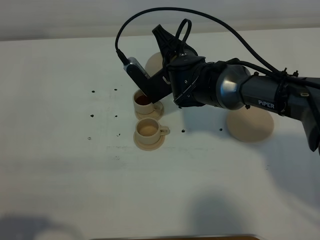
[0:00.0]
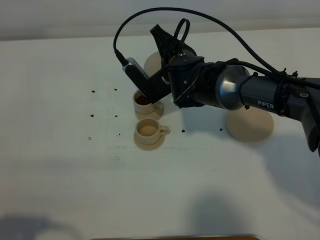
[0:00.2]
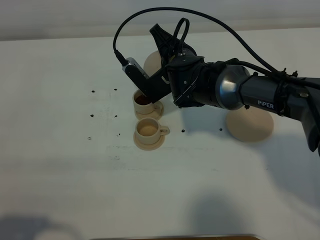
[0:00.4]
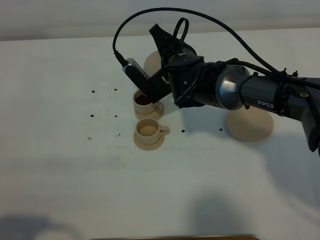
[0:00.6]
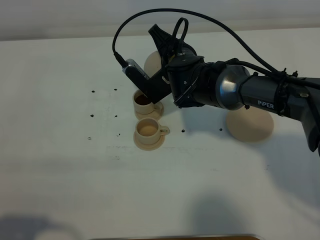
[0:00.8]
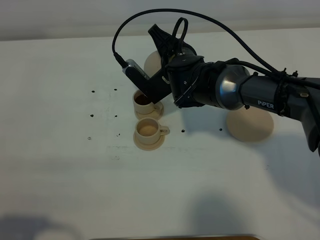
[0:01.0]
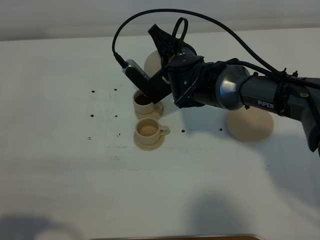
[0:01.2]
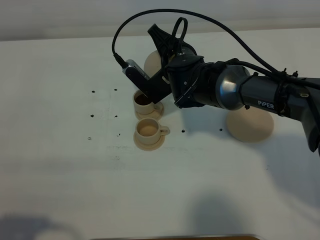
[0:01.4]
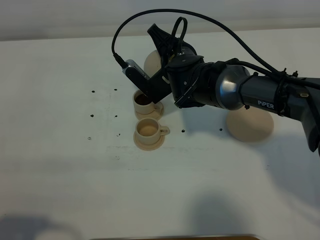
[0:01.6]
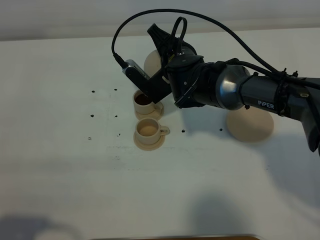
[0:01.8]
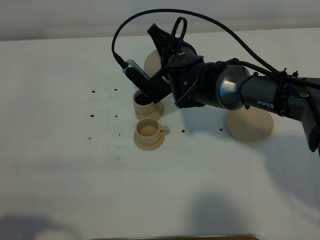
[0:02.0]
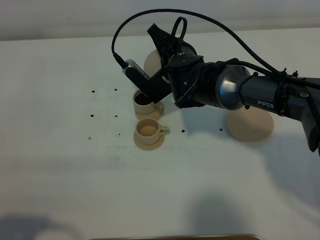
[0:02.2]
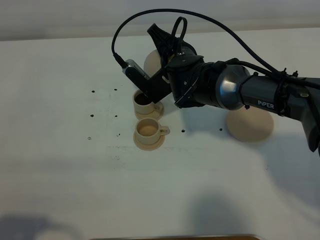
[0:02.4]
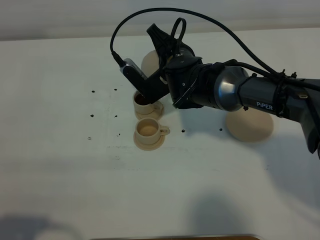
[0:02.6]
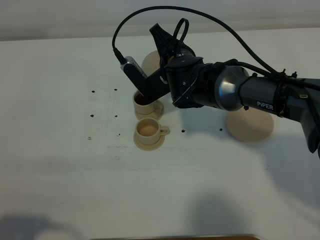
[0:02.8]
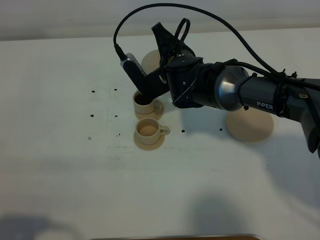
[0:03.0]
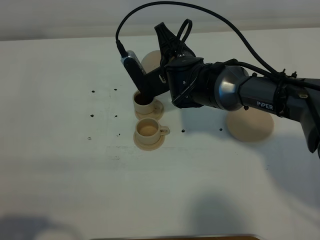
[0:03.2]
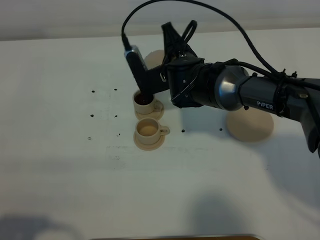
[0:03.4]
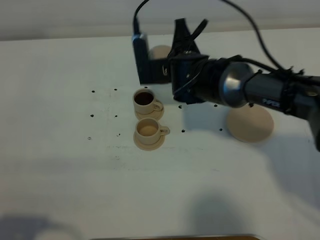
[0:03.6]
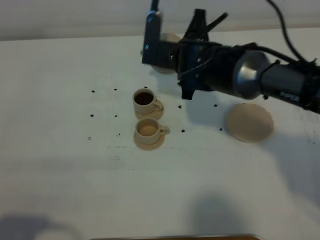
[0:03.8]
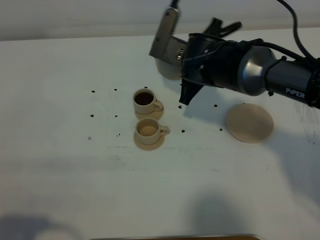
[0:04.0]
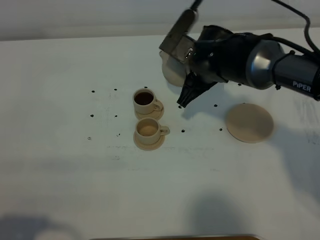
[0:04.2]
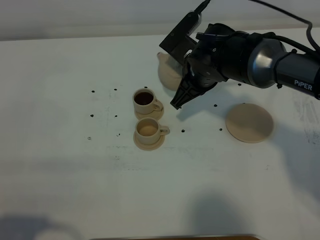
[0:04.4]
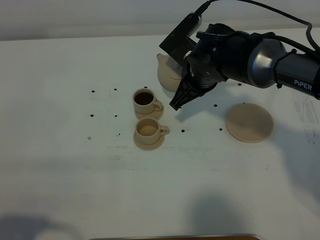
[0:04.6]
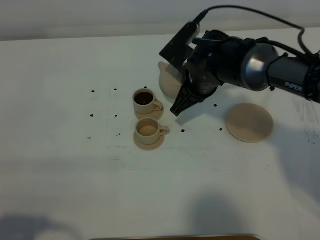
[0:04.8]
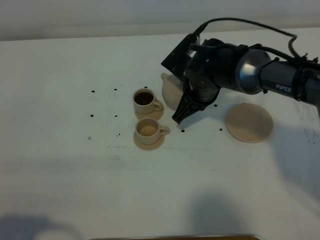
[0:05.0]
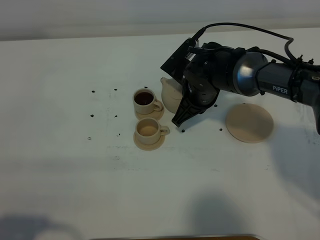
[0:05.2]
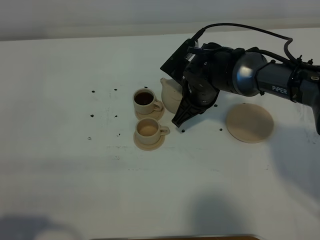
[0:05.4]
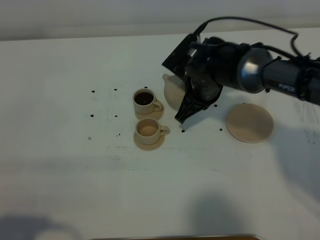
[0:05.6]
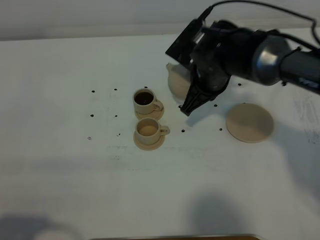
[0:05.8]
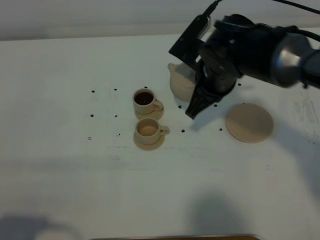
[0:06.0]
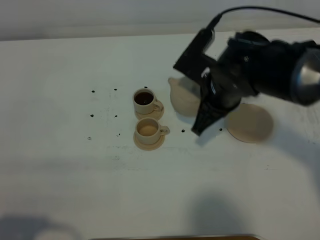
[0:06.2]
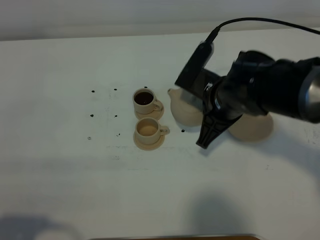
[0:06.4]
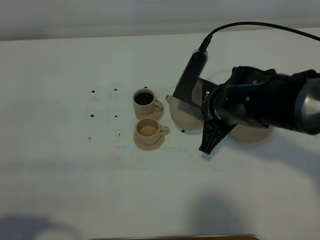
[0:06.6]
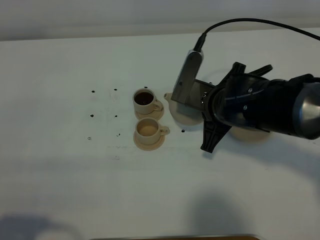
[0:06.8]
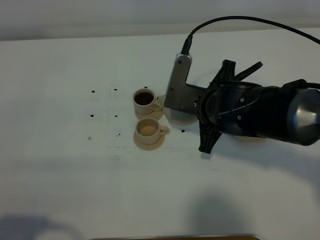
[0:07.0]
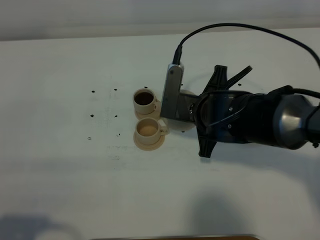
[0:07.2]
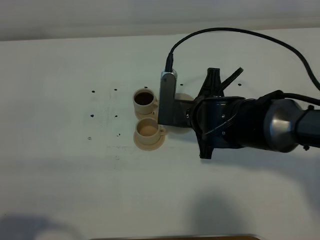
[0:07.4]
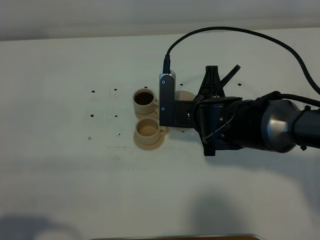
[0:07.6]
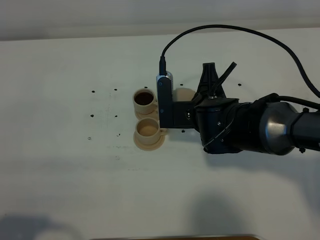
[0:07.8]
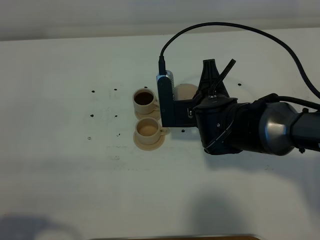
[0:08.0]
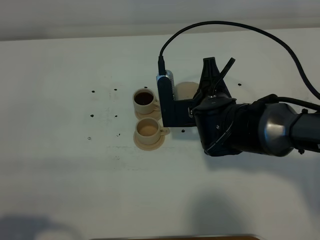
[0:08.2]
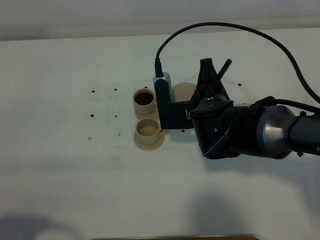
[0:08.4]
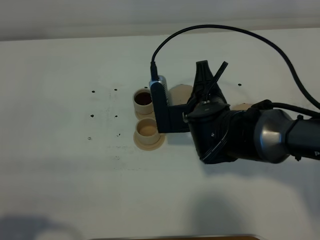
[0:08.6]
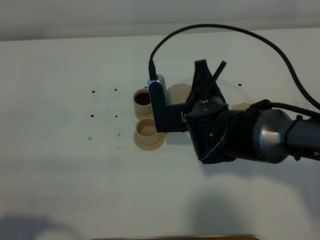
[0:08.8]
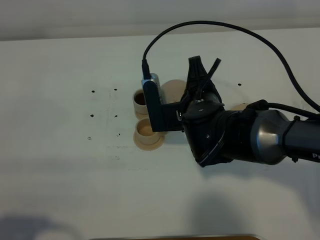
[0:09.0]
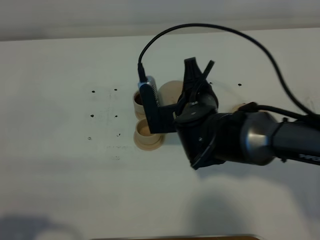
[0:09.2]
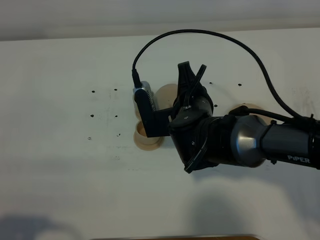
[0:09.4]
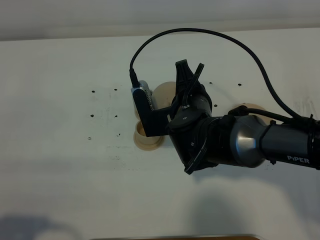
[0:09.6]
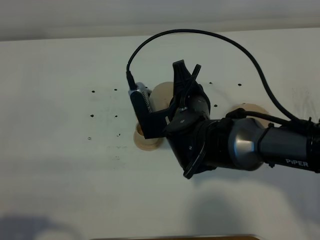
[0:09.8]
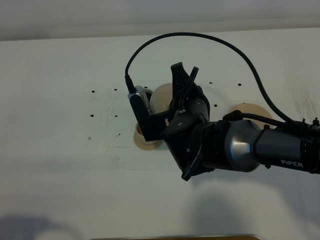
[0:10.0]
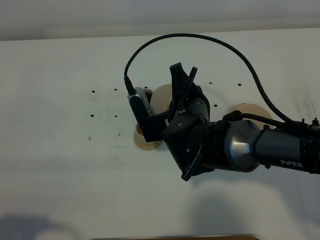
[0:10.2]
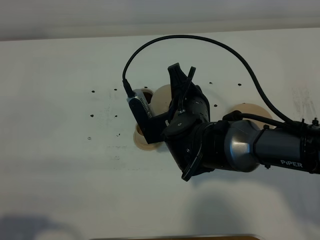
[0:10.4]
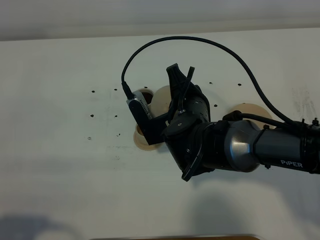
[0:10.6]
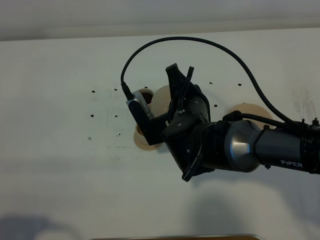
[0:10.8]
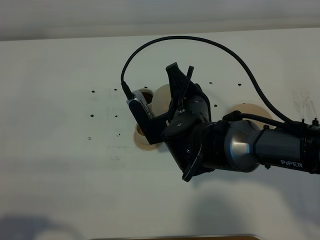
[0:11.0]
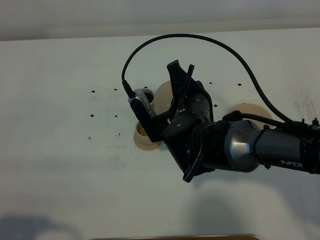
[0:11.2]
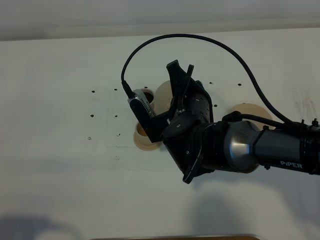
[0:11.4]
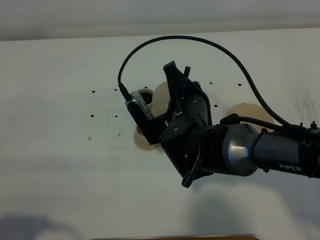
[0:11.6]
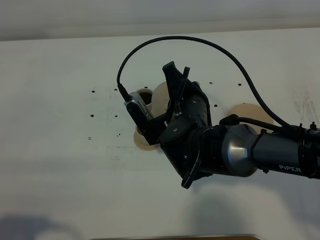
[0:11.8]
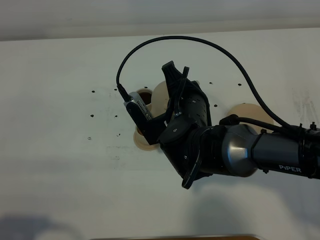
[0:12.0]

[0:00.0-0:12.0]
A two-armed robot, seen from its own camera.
Task of the whole recording: grasp the brown teapot and pour the tea into the two brown teacups one by one, put the brown teapot back in its original place.
Step, 0:00.0 to 0:03.2: Pour tea into the teacup with the right gripper.
0:00.0 to 0:03.0: The grippers make only small movements.
0:04.4 to 0:06.0: The right gripper travels downward and back again, roughly 5 cm each way.
0:06.0 to 0:07.6: The right gripper moves some 5 cm.
0:07.6 to 0:09.0: The grippers move only a little.
0:09.0 to 0:12.0: The grippers stay close to where they were, moving slightly.

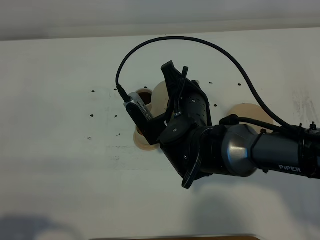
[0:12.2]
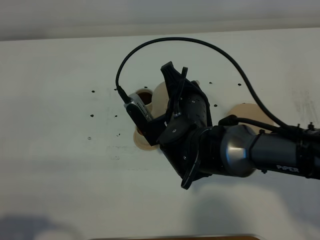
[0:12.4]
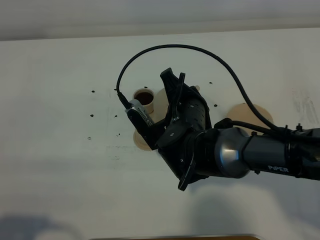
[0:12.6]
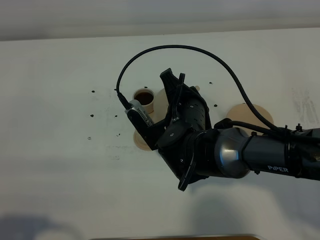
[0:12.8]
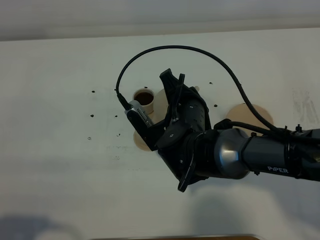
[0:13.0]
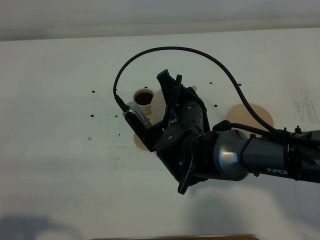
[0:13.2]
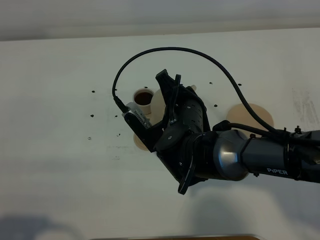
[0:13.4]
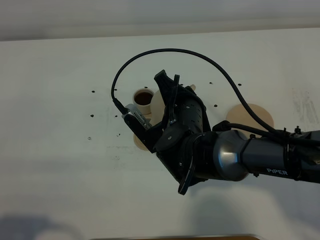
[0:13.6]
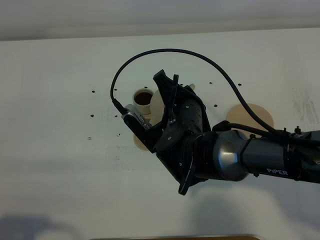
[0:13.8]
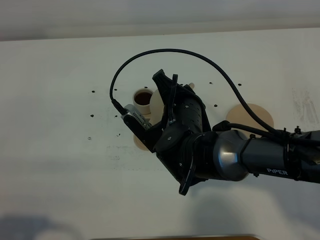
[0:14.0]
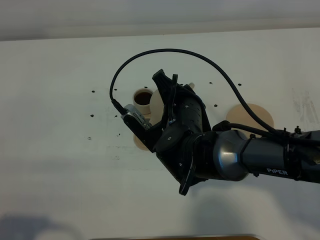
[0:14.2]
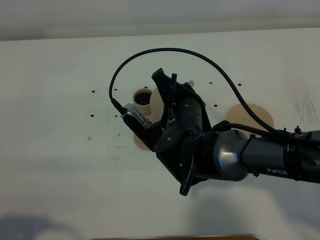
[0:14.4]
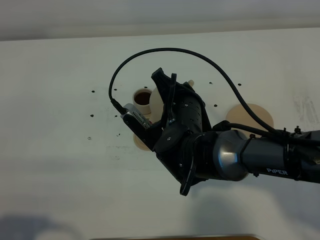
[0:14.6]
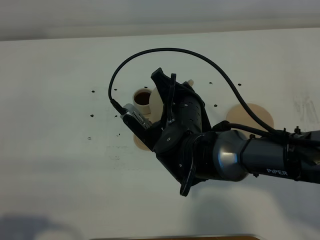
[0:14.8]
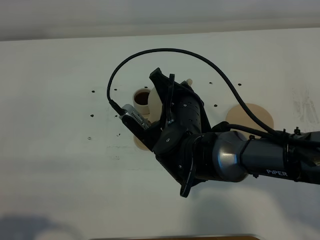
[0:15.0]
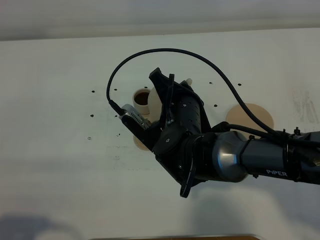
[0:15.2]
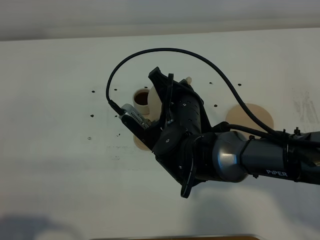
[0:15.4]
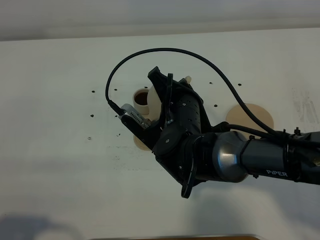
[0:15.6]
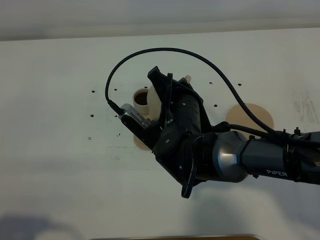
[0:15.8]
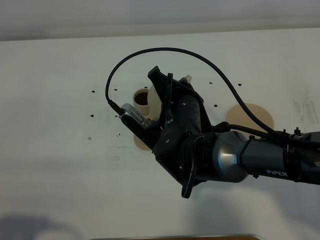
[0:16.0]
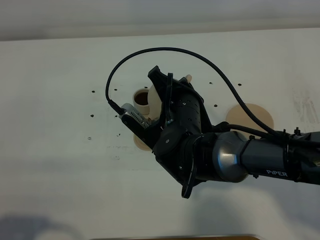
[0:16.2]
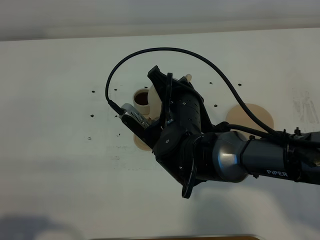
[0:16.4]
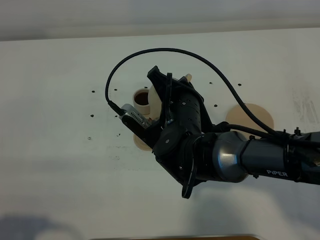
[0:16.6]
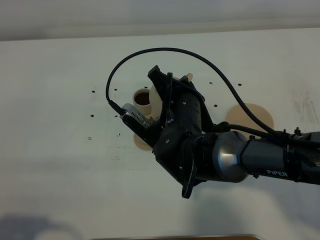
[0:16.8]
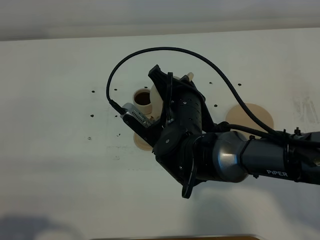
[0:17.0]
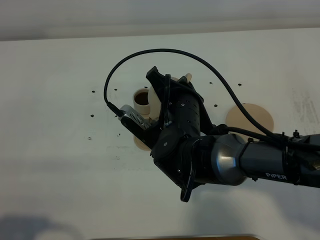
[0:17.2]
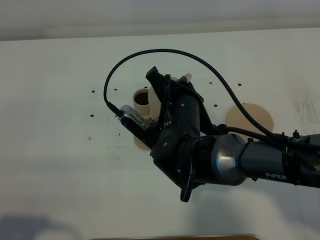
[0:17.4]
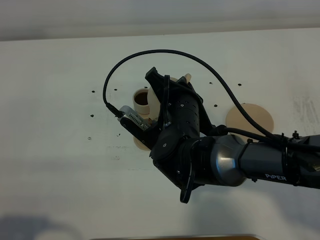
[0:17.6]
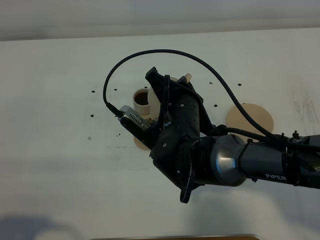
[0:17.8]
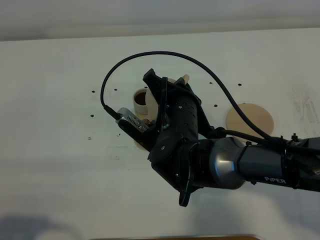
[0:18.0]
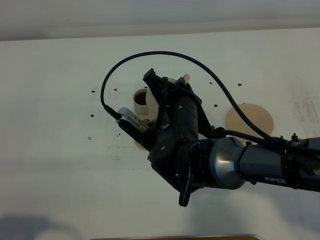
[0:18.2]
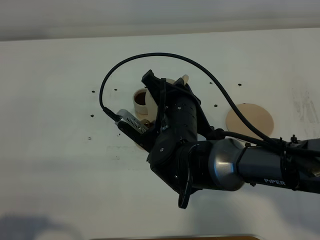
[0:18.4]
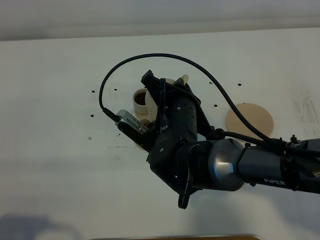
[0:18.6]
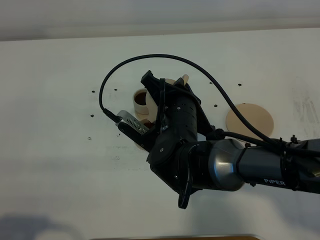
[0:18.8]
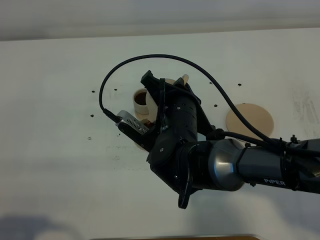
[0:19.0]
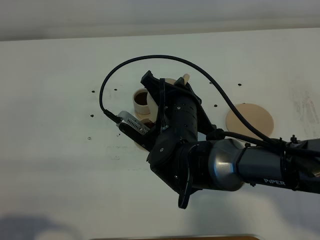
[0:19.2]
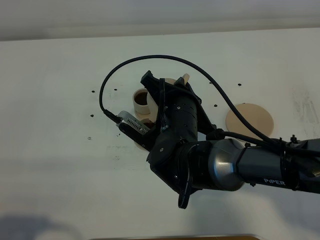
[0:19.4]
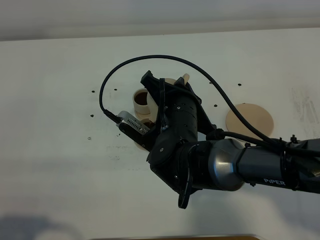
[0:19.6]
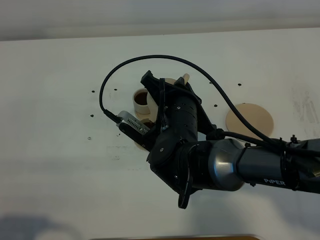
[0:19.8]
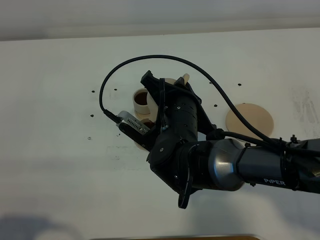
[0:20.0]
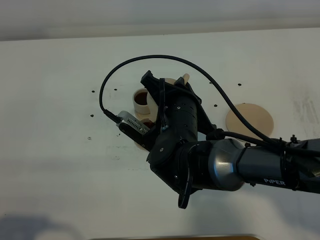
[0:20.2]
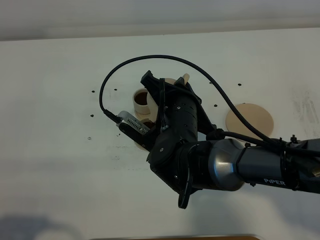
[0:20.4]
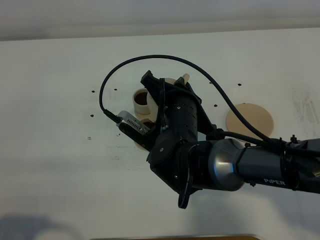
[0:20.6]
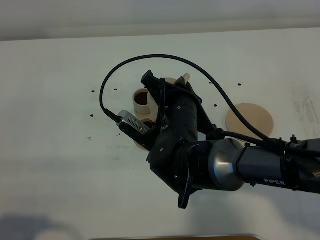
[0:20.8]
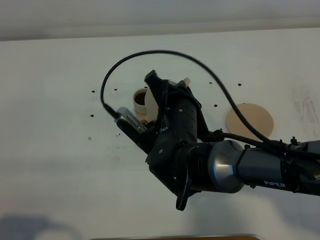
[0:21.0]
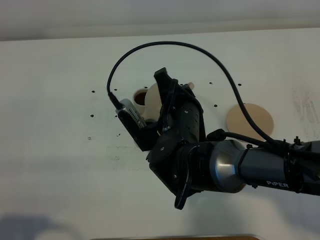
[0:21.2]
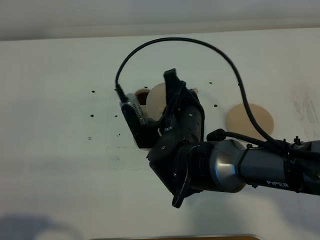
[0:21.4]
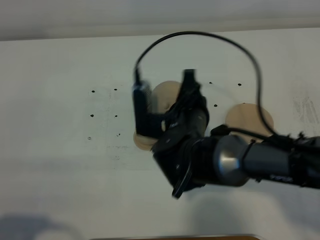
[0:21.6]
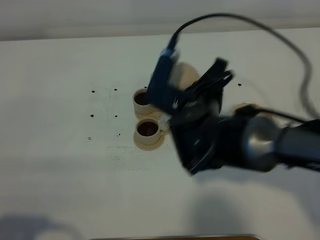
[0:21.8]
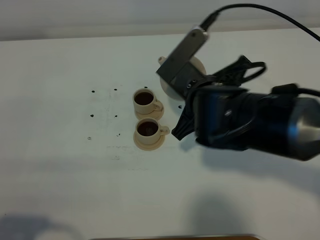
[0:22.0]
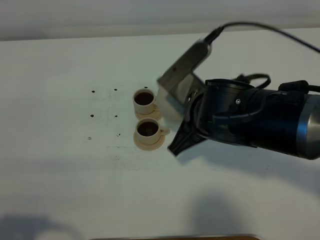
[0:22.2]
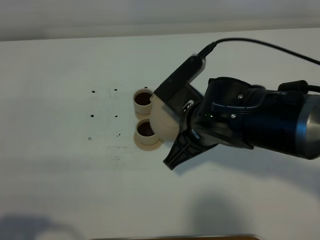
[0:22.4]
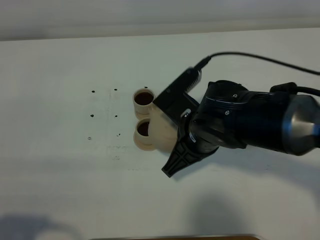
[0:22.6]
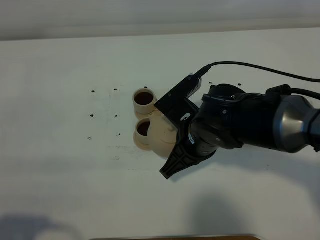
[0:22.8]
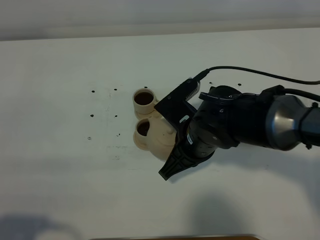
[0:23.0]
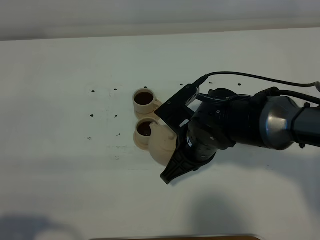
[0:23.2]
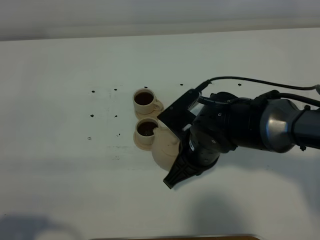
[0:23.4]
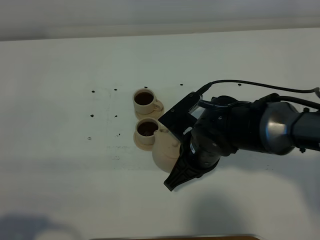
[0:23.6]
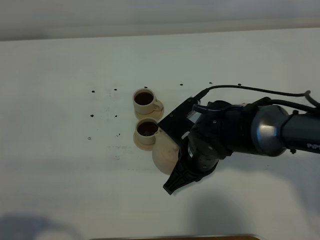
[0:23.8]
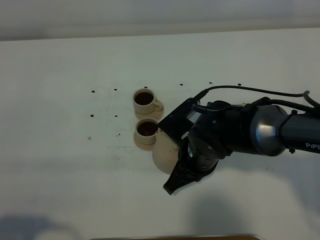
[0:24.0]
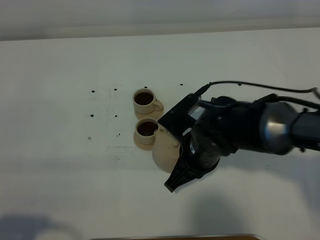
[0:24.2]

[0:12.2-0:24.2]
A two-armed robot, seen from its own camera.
Task of the whole recording: grasp the brown teapot and pour the tea into the two brown teacups one by one, put the brown teapot back in its original place.
Step, 0:12.2 to 0:21.0: Pour tea into the teacup with the right gripper.
0:12.2 to 0:13.8: The grippers stay close to where they were, moving slightly.
0:13.8 to 0:15.2: Neither gripper changes place.
0:15.2 to 0:16.6: The two grippers keep their place.
0:16.6 to 0:18.2: Both grippers stay put.
0:18.2 to 0:19.8: The two grippers keep their place.
0:19.8 to 0:21.2: The grippers stay close to where they were, moving slightly.
